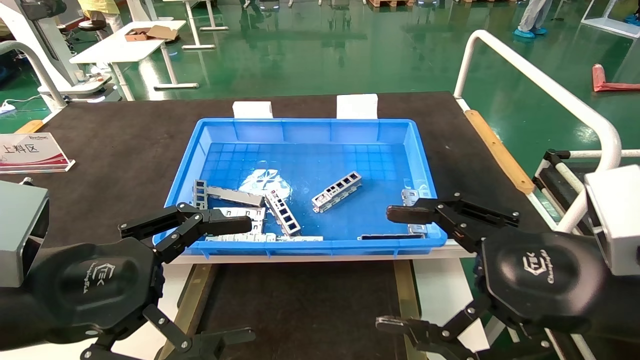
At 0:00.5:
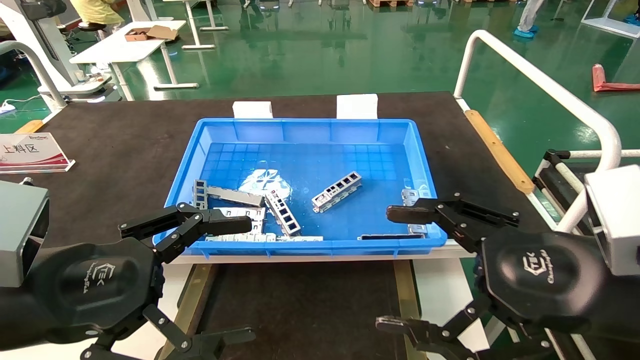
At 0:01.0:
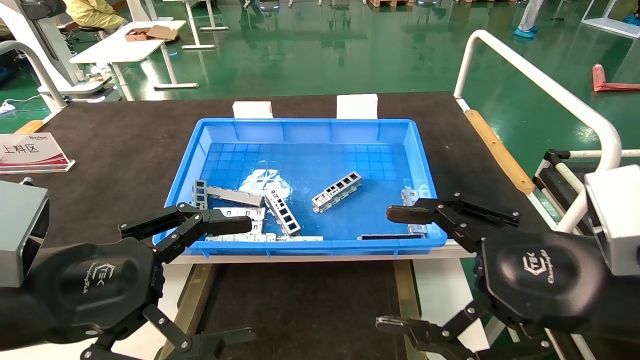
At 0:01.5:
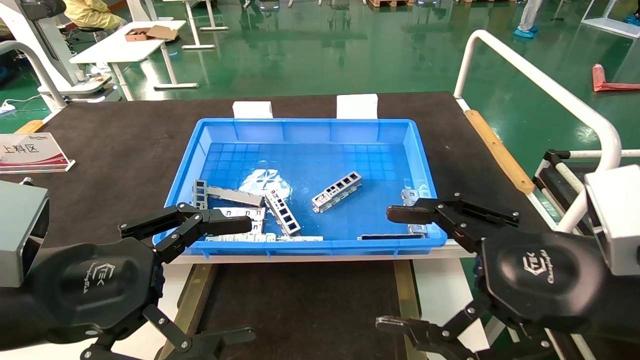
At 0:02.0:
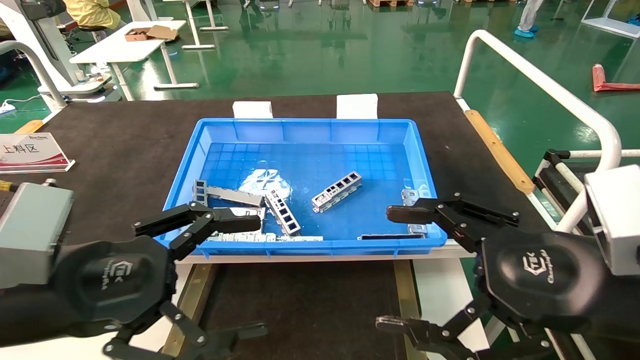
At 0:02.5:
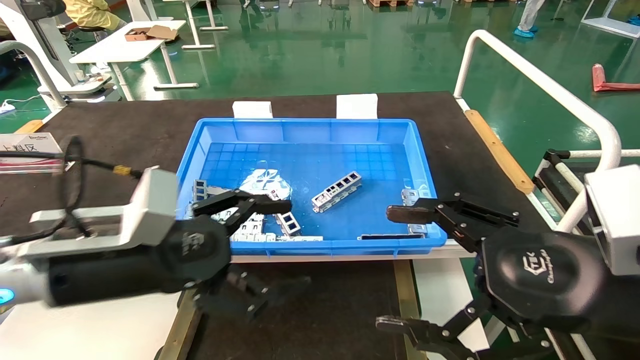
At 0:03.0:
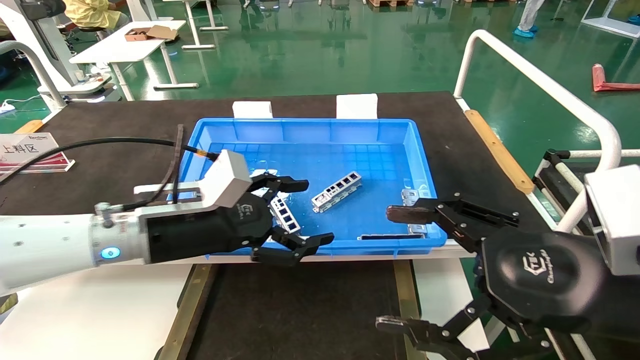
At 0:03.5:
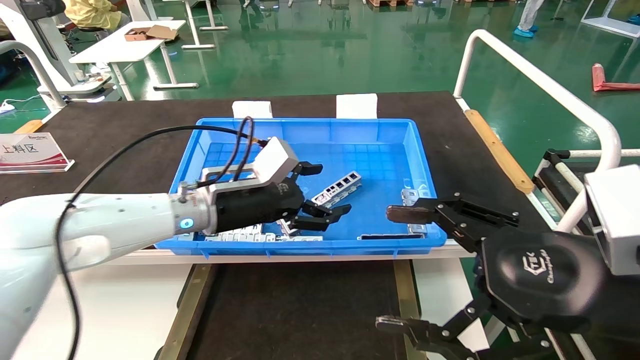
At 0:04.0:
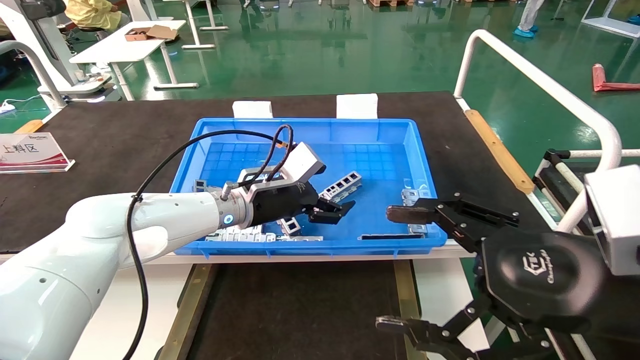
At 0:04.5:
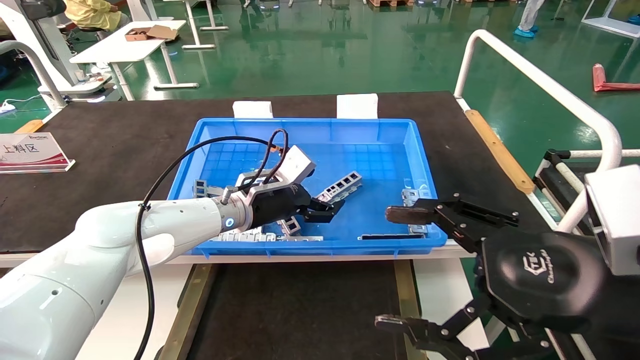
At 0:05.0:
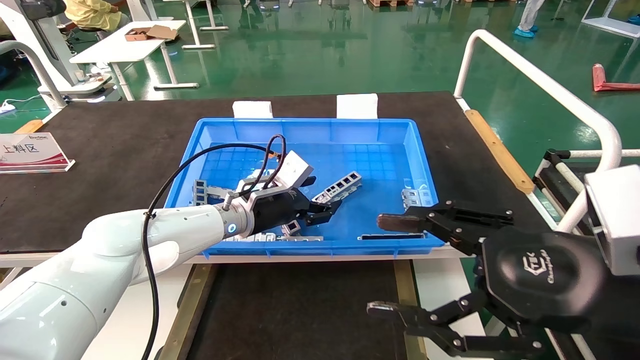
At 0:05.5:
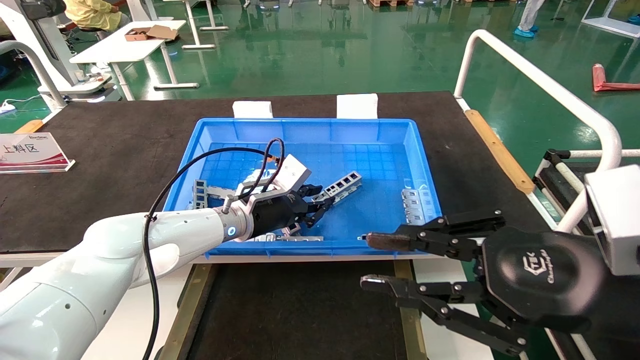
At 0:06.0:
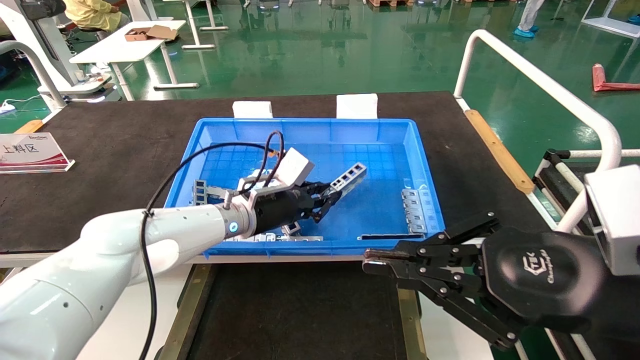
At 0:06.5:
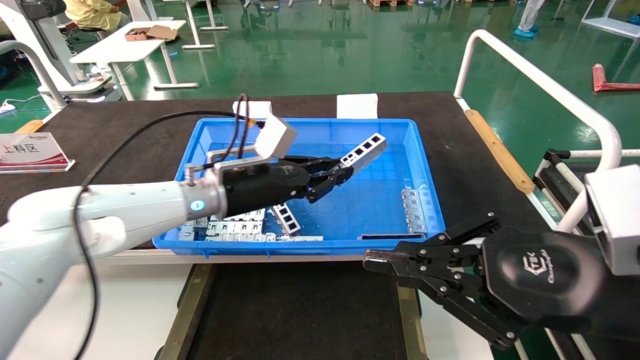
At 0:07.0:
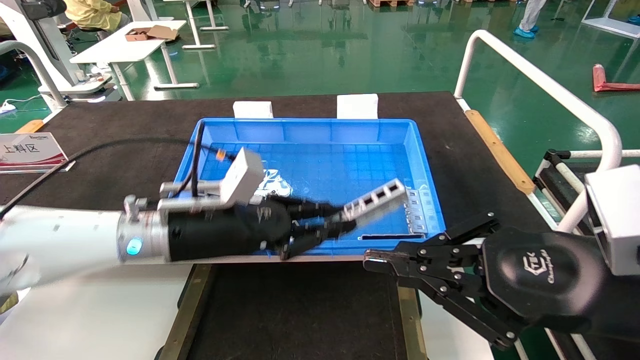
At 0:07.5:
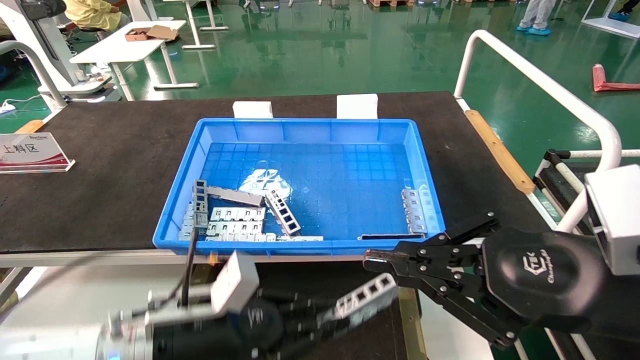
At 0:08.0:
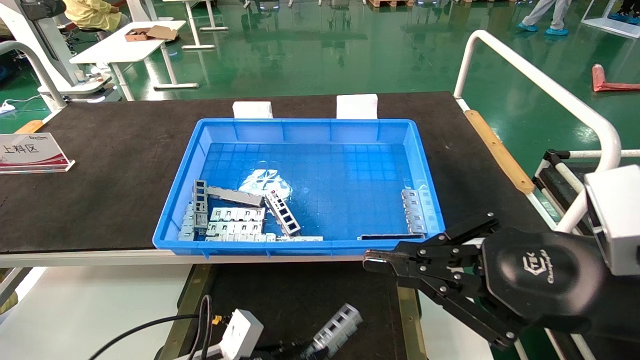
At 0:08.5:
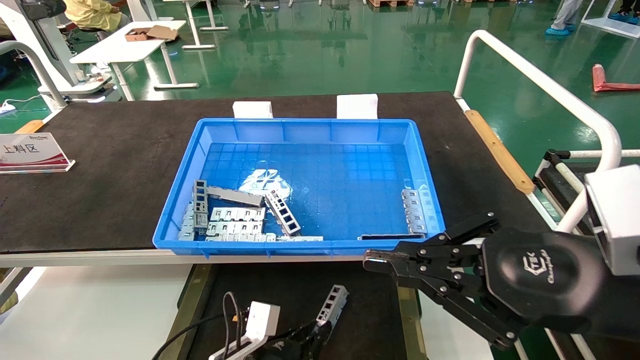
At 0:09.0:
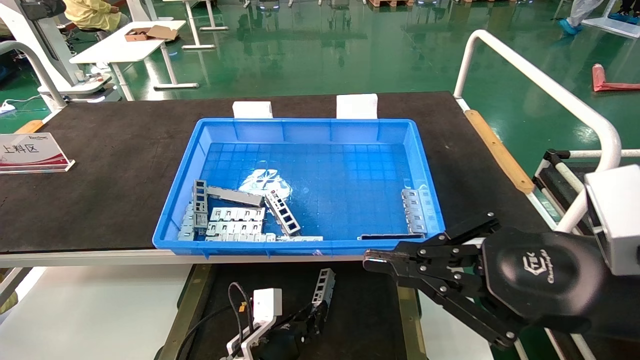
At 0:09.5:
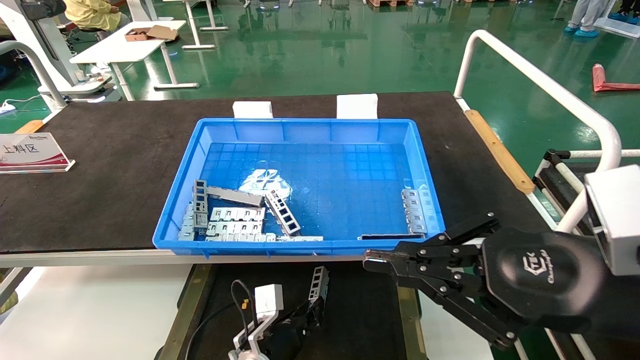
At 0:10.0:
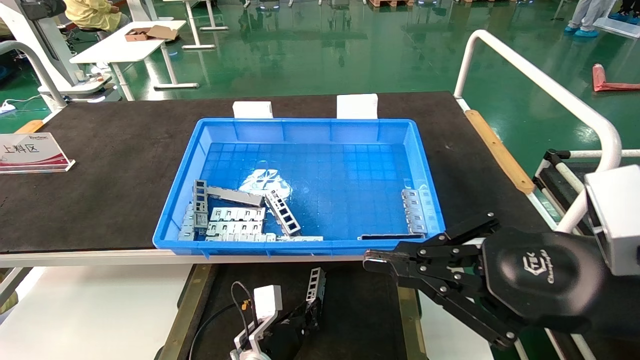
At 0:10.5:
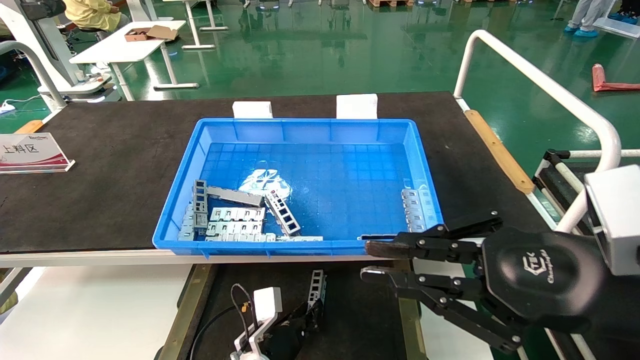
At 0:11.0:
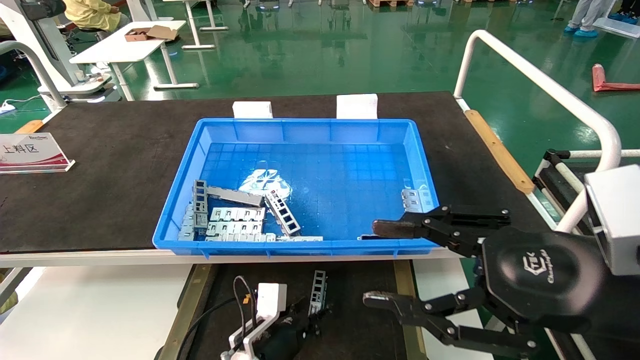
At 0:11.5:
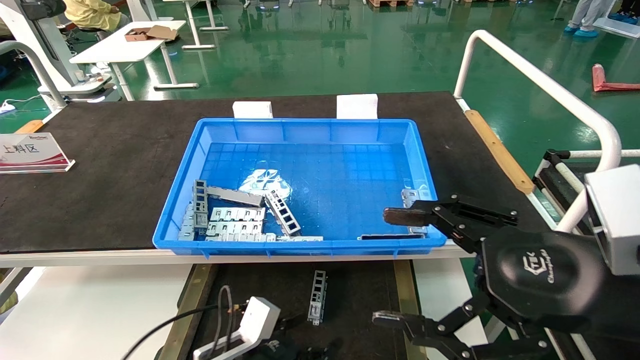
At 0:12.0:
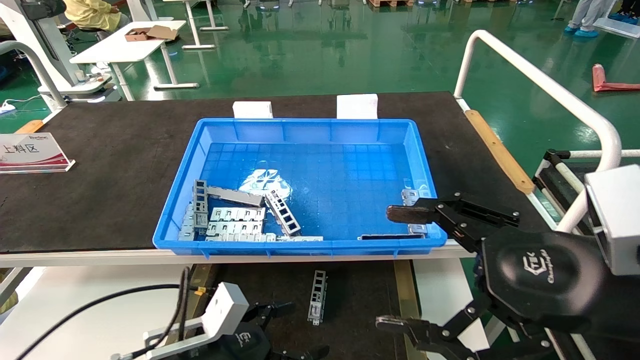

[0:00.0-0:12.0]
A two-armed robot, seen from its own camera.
Task of the whole recording: Grasp the part with one hand and place it on the black container.
Step, 0:02.0 to 0:06.0: Pick up the front USB bracket from the feeding area.
Step, 0:06.5 to 0:10.5: Place the front USB bracket into the box.
0:00.0 to 0:02.0: The grippers make only small movements.
0:02.0 to 0:04.0: The left gripper shifts approximately 30 cm forward and to the right.
0:04.0 to 0:06.0: The left gripper closes its fingers, while the right gripper closes.
0:06.0 to 0:08.0: The left gripper travels downward and backward by roughly 25 cm.
0:08.0 to 0:10.0: The left gripper shifts approximately 15 cm forward, to the right and downward.
0:10.0 to 0:12.0: The left gripper is displaced upward, backward and to the left by approximately 20 cm, and opens its fingers, while the right gripper opens up.

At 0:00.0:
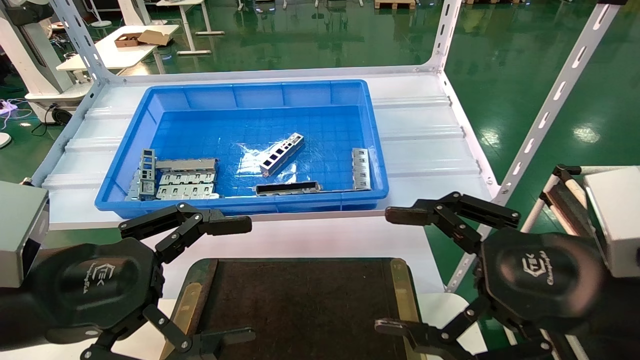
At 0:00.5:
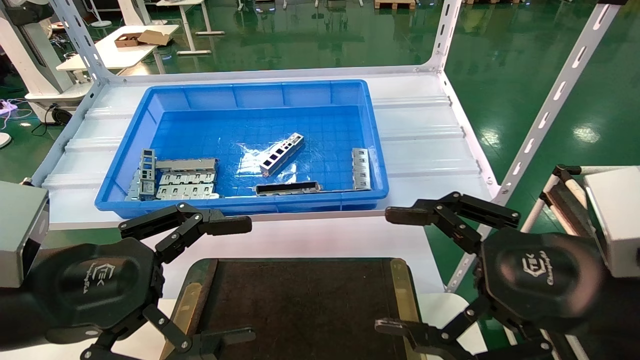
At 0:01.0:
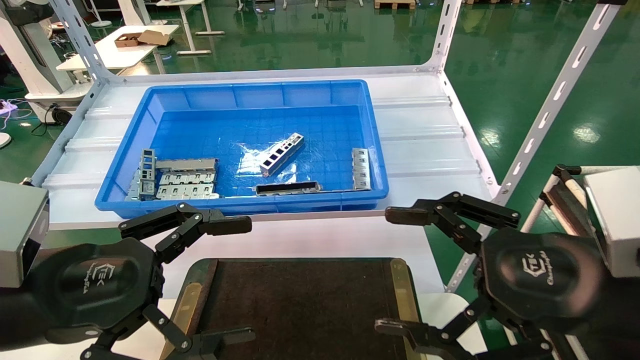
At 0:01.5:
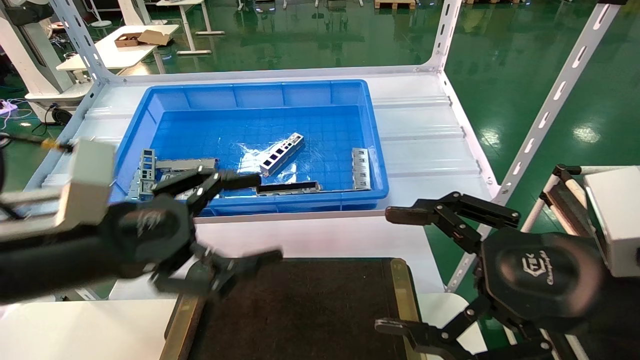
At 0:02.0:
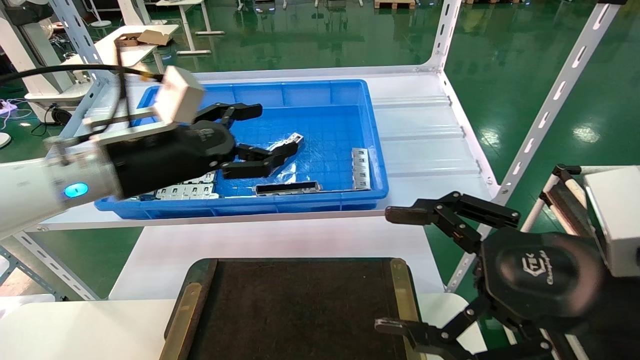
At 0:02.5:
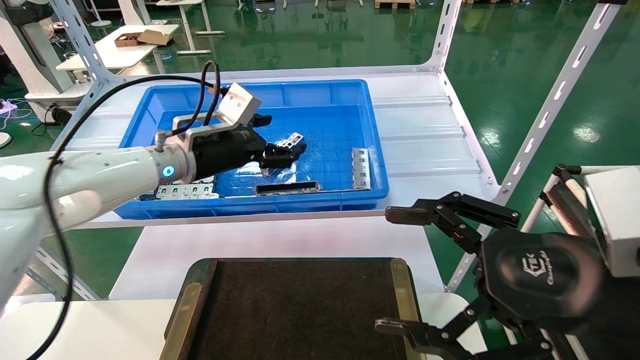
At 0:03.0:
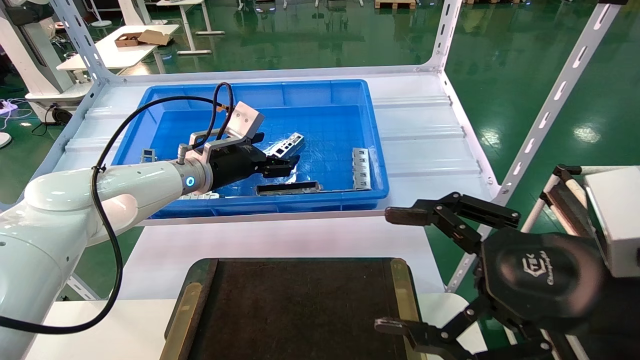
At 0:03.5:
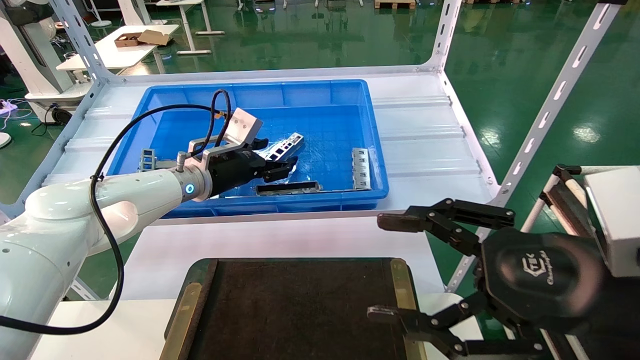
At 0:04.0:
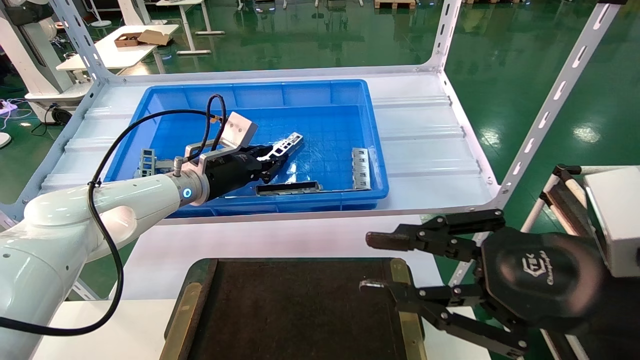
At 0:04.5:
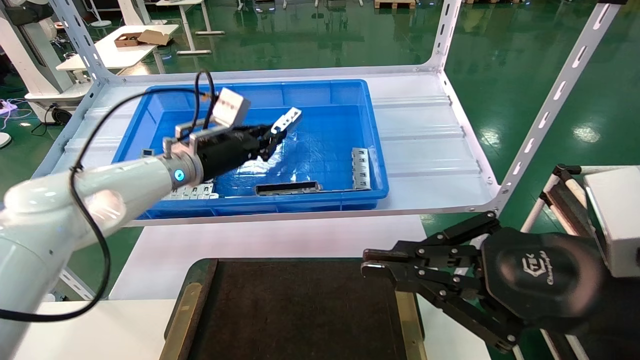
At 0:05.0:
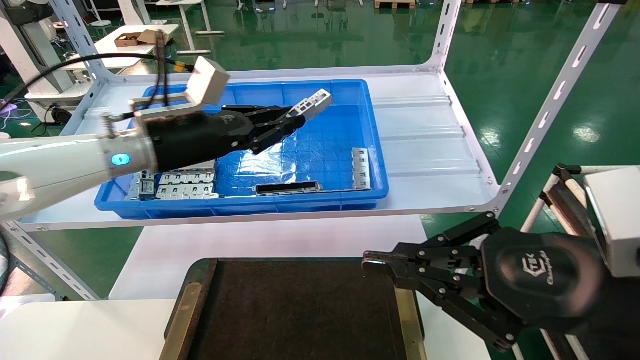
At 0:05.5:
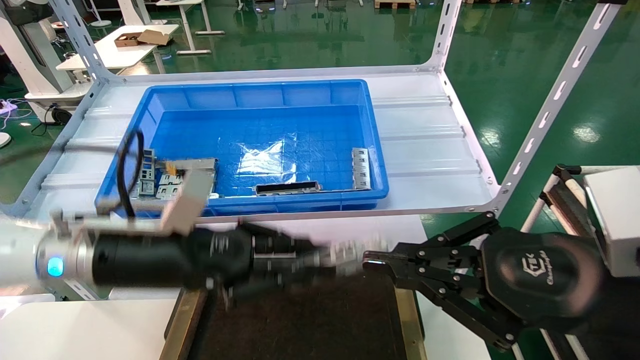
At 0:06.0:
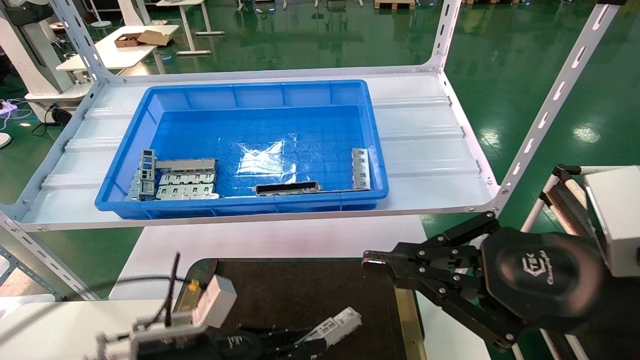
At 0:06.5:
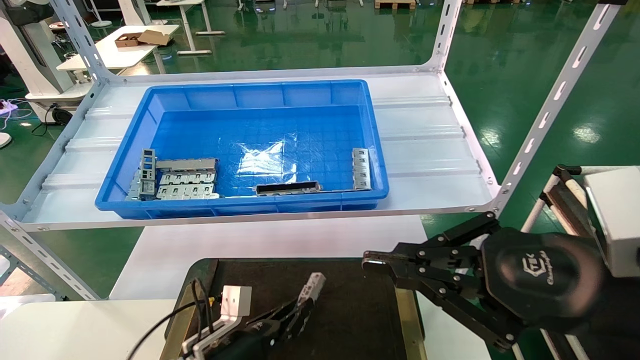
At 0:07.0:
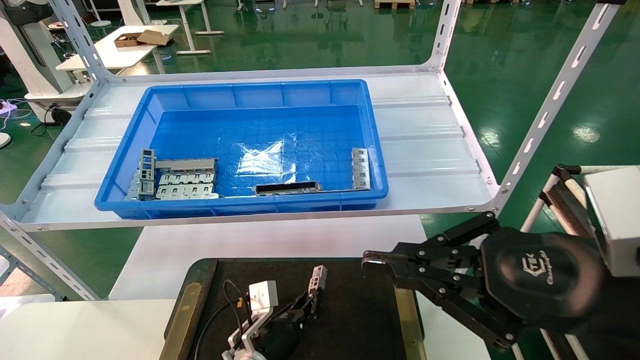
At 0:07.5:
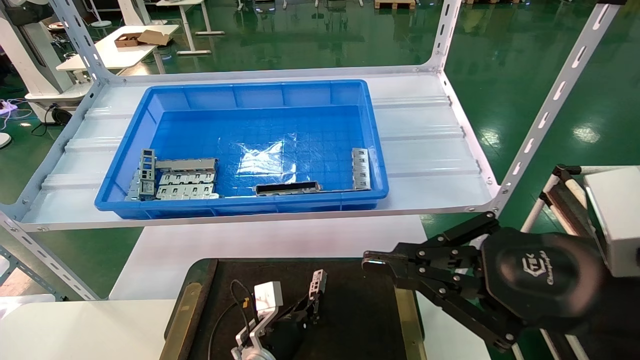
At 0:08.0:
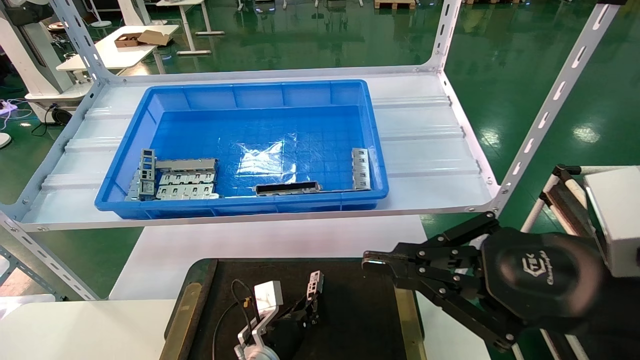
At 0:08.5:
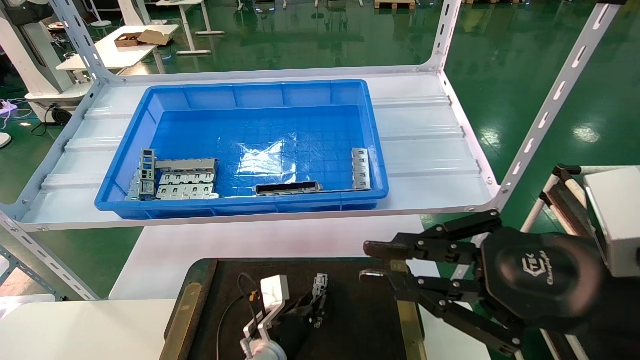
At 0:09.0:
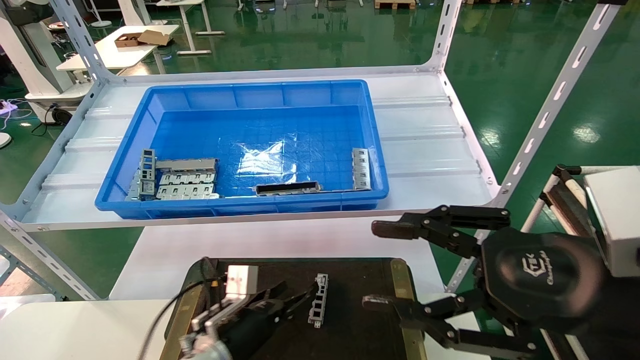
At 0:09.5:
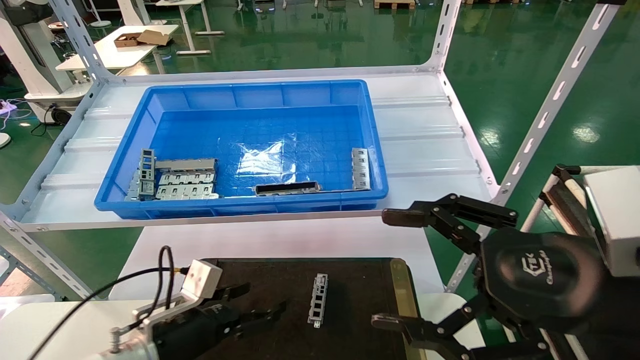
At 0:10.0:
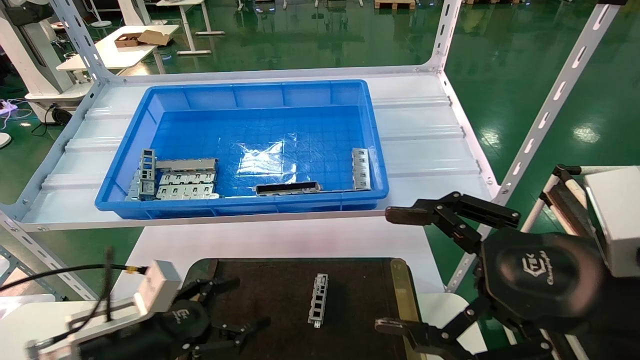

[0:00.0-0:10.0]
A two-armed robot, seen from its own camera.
Task of the whole recording: Grasp the part with one hand and place it on the black container.
Step, 0:01.5 to 0:04.0: Pick up the front USB bracket from the feeding area.
Step, 0:04.5 to 0:08.0: Place the front USB bracket into the box.
0:00.0 to 0:02.0: The left gripper moves forward, some 15 cm.
0:02.0 to 0:04.0: The left gripper shifts roughly 15 cm forward and downward, and closes its fingers, while the right gripper closes.
0:04.0 to 0:06.0: The right gripper closes. Meanwhile the left gripper is displaced backward and downward by about 25 cm.
0:06.0 to 0:08.0: The left gripper is displaced downward, to the right and forward by roughly 20 cm.
0:08.0 to 0:10.0: The right gripper opens up. Meanwhile the left gripper moves to the left, upward and backward, about 25 cm, and opens up.
